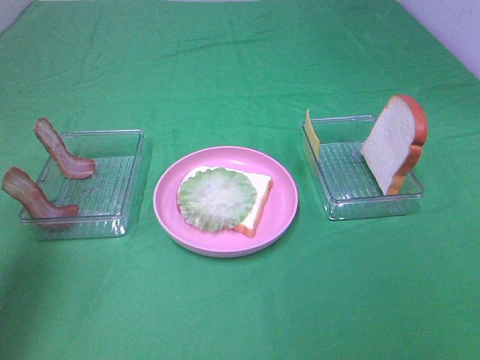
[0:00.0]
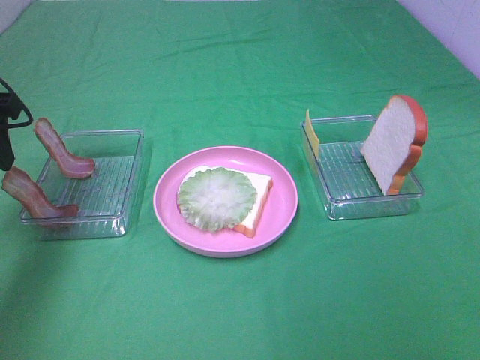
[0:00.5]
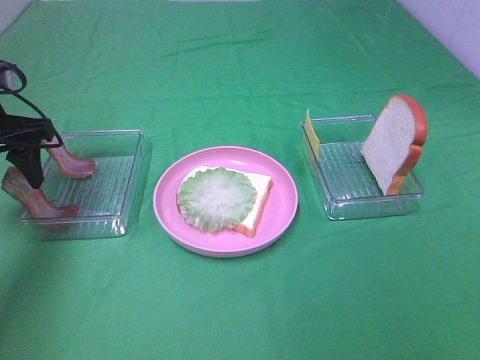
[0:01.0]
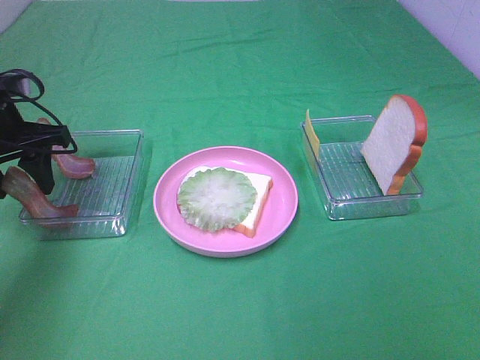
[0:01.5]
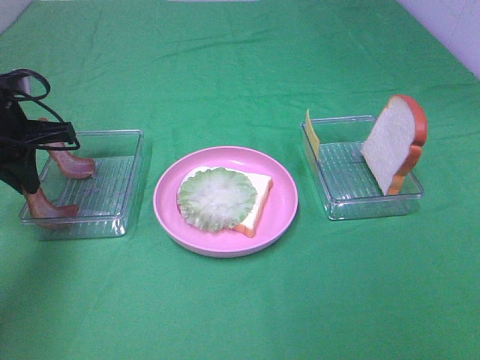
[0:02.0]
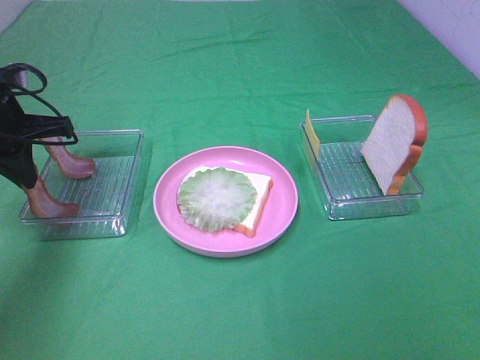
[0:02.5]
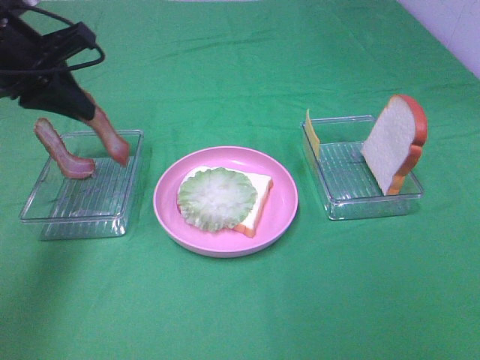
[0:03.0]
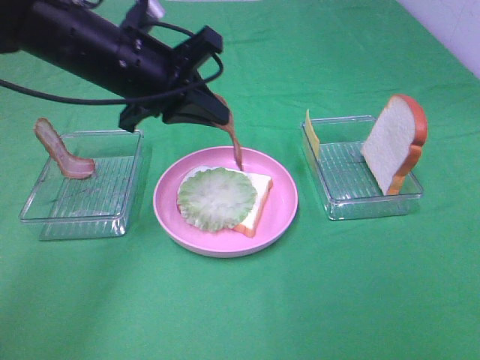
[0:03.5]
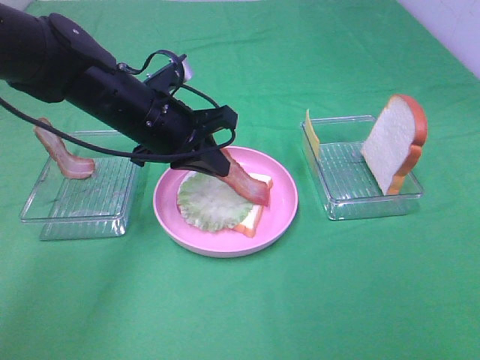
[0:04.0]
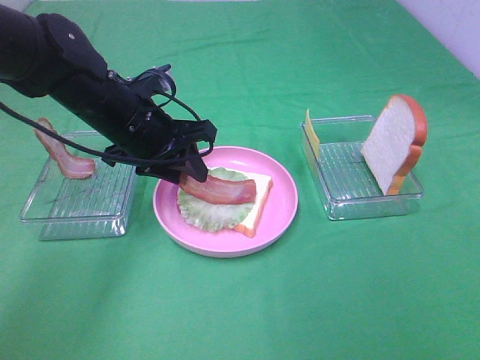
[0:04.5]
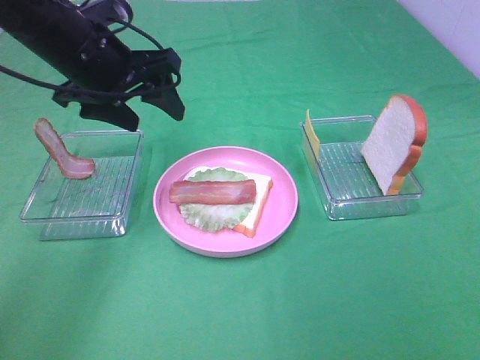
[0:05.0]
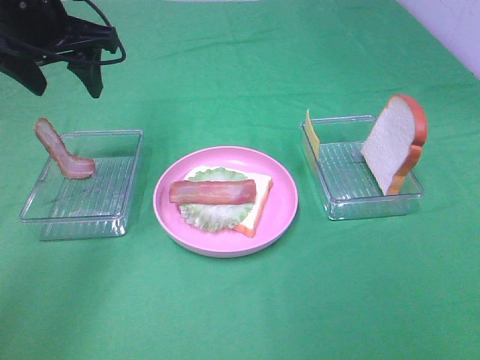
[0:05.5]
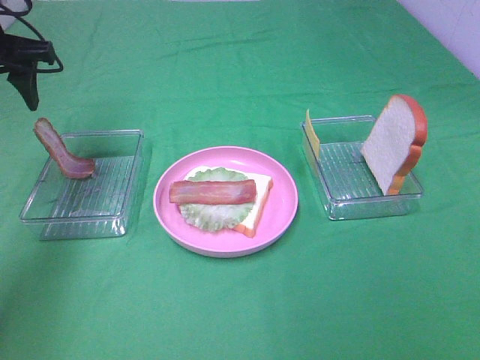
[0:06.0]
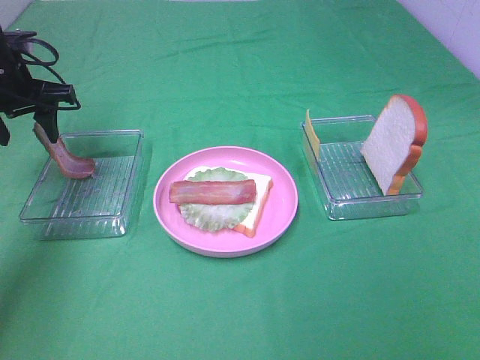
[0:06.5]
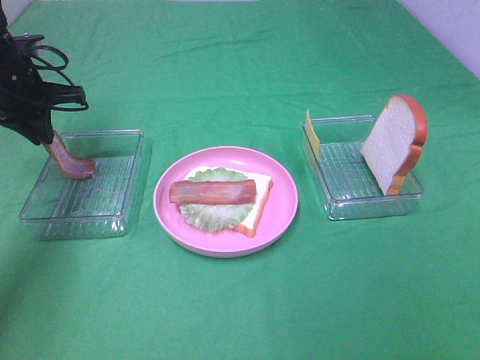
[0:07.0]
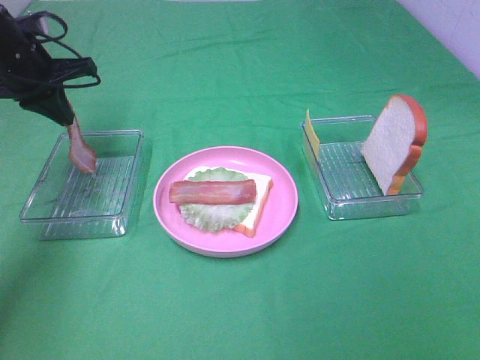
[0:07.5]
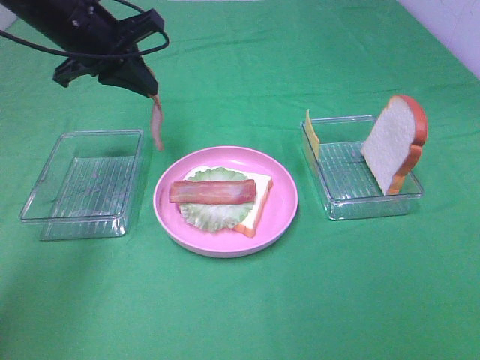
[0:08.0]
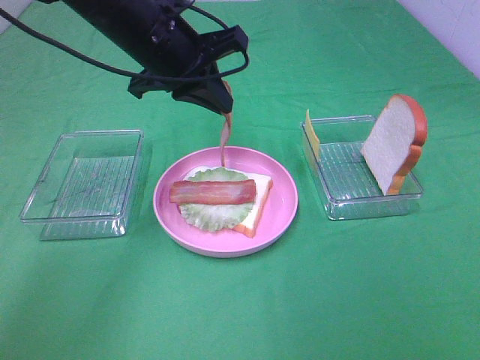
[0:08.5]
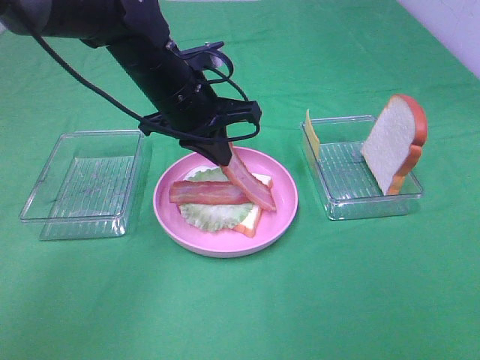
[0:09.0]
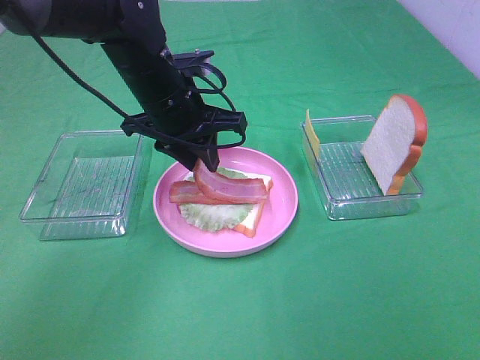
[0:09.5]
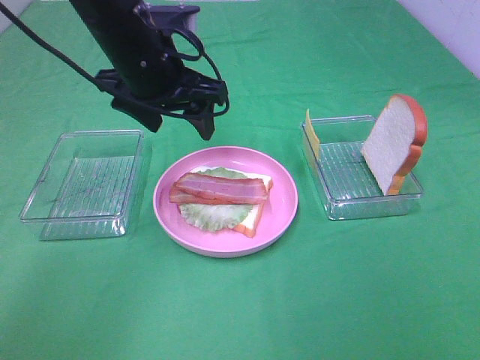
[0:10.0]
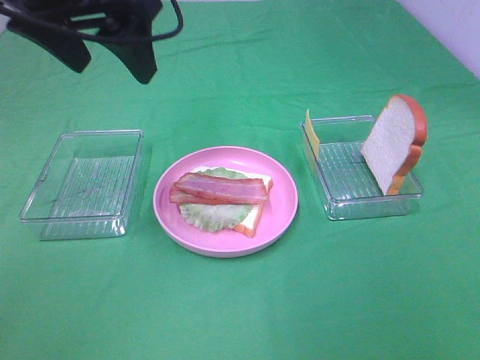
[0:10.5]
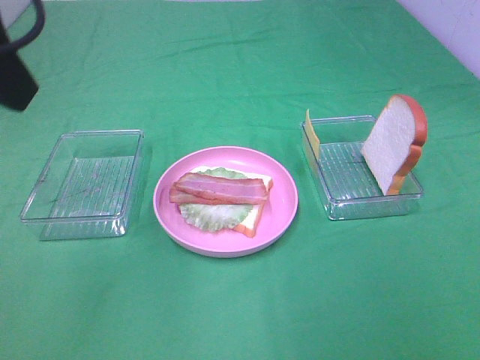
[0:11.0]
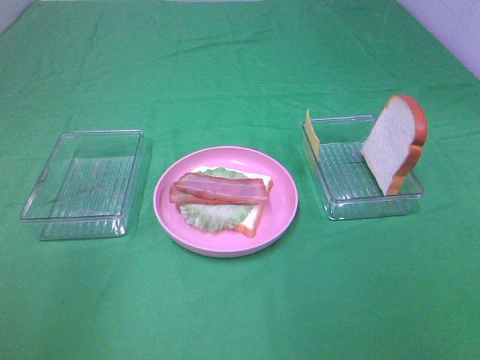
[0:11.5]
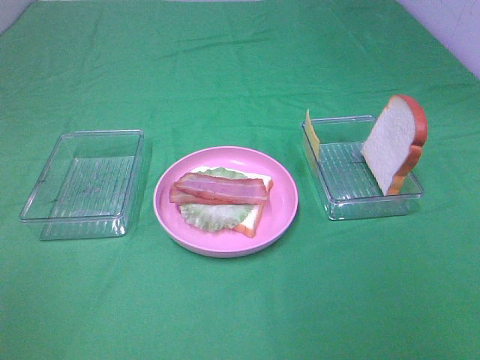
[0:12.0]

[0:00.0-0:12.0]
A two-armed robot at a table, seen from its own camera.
Task of the whole recording: Make sandwiches.
Step, 0:00.0 to 0:02.0: Left hand:grab the bacon.
Step, 0:02.5 to 0:04.5: Left hand:place bacon on lettuce slice.
Step, 0:05.0 to 0:07.0: Left hand:grab the bacon.
Step, 0:07.5 to 0:09.5: Left hand:place bacon on bacon.
0:00.0 to 0:02.0: The left gripper shifts about 20 cm forward and downward, and closes its fingers.
0:02.0 to 0:04.0: The left gripper is displaced to the right by about 15 cm.
0:04.0 to 0:06.0: The left gripper travels to the left and upward by approximately 20 cm, and opens its fingers.
0:06.0 to 0:08.0: The left gripper goes about 10 cm to the right, and closes.
0:08.0 to 0:10.0: The left gripper is displaced to the right by about 10 cm, and opens its fingers.
0:10.0 to 0:12.0: The left gripper moves backward and to the left, some 40 cm.

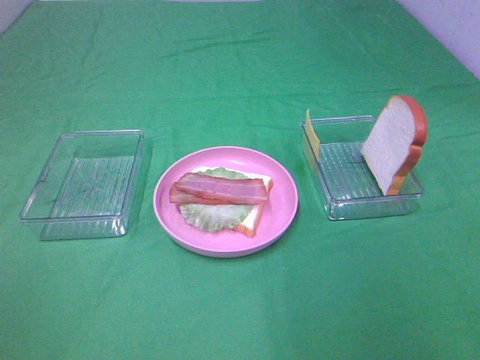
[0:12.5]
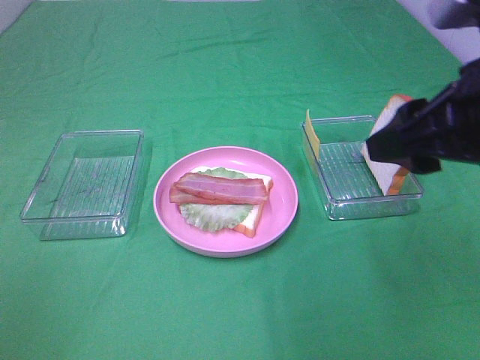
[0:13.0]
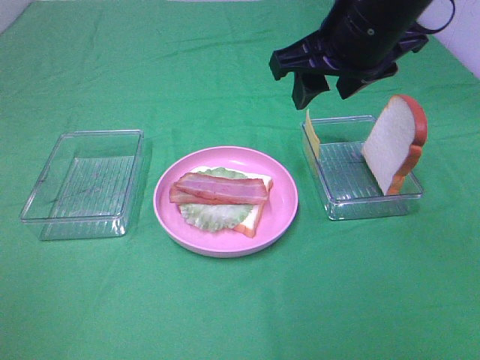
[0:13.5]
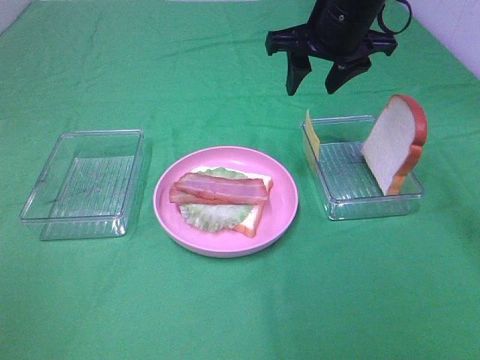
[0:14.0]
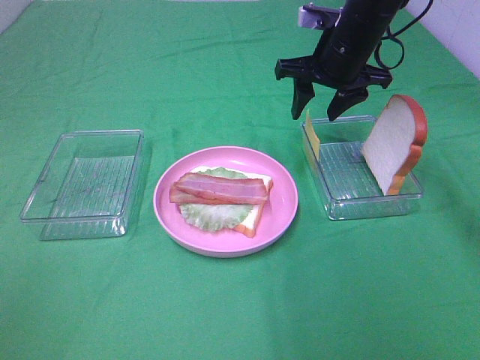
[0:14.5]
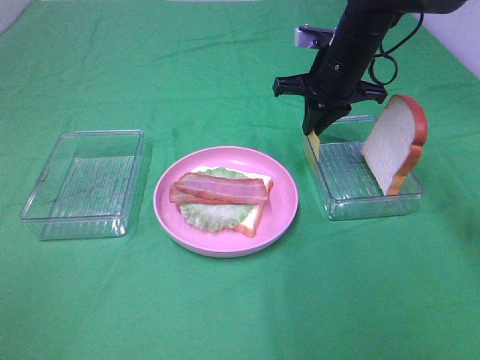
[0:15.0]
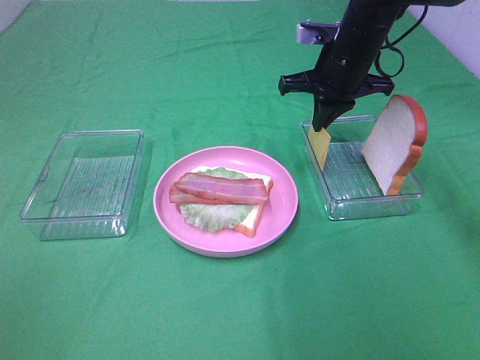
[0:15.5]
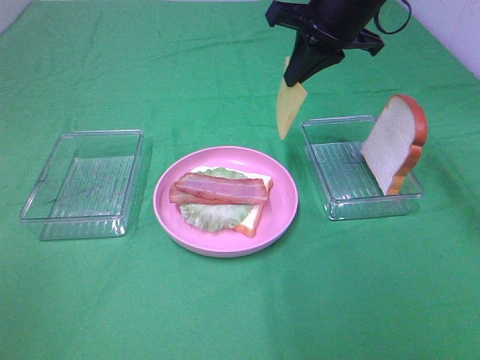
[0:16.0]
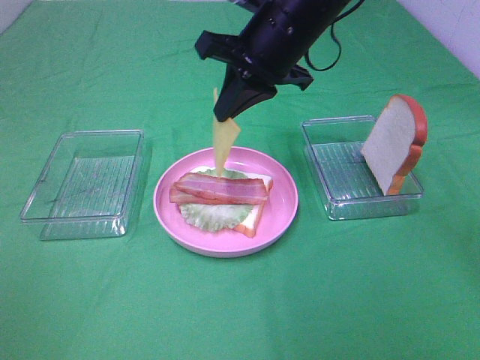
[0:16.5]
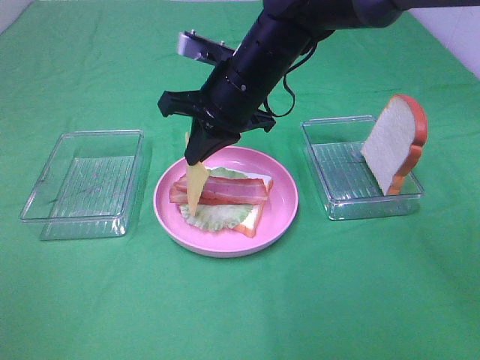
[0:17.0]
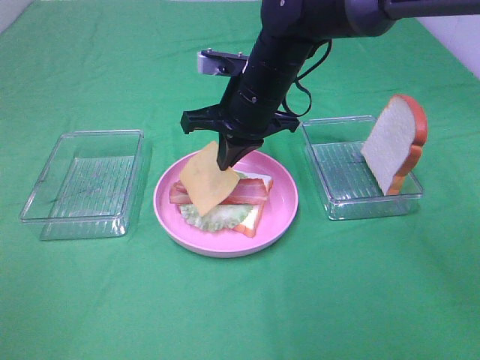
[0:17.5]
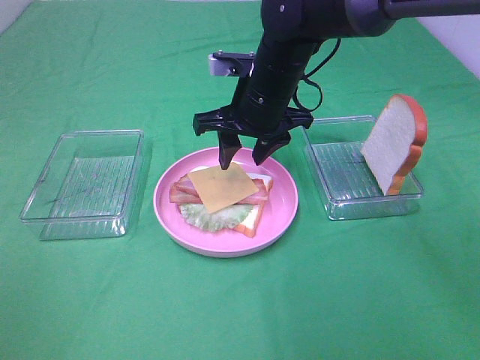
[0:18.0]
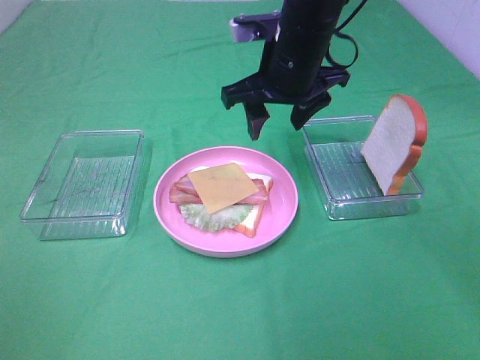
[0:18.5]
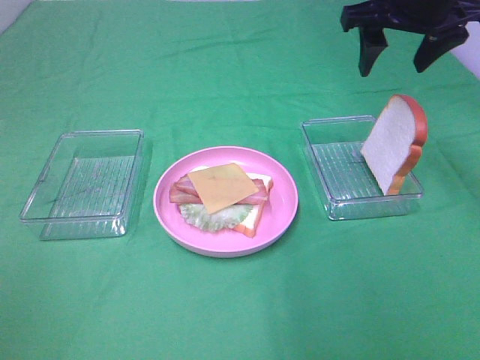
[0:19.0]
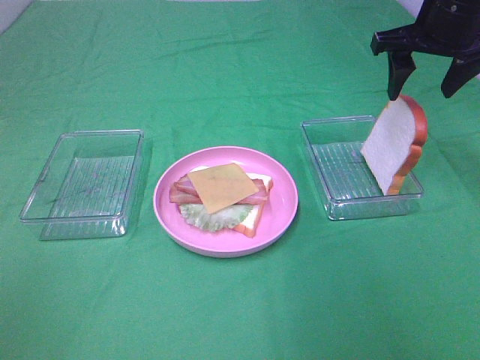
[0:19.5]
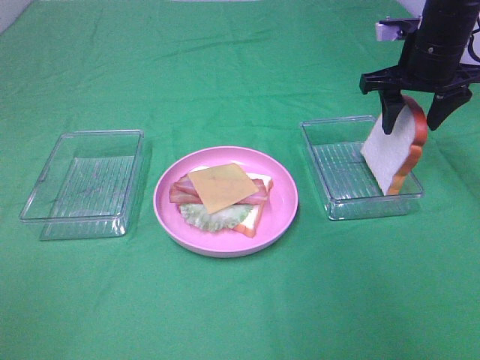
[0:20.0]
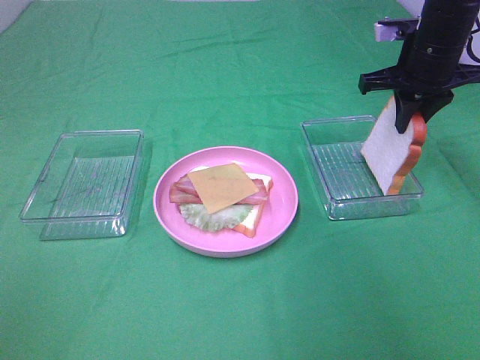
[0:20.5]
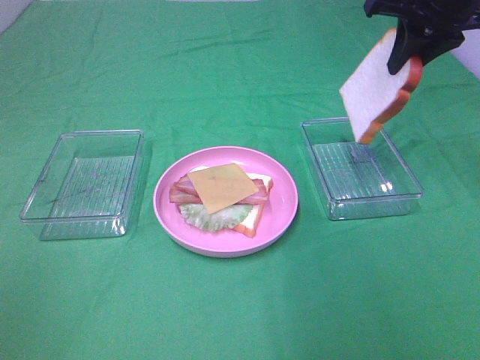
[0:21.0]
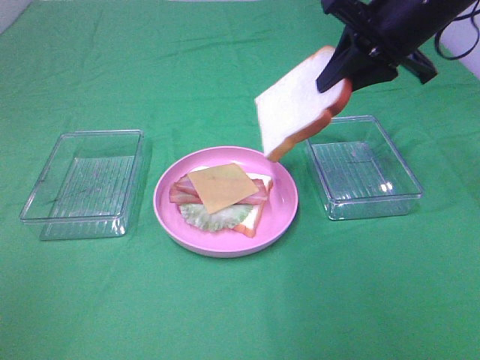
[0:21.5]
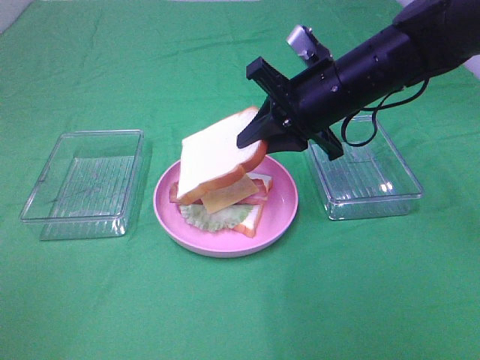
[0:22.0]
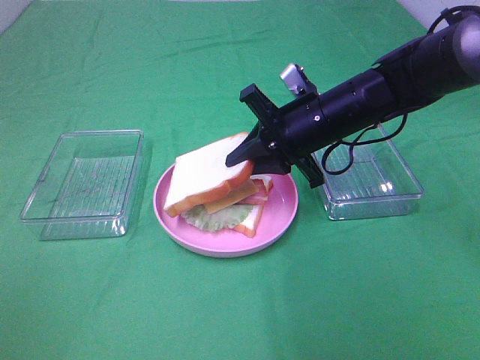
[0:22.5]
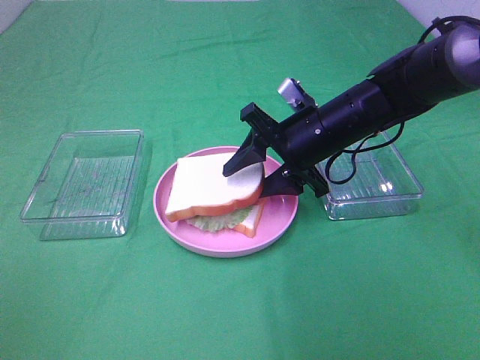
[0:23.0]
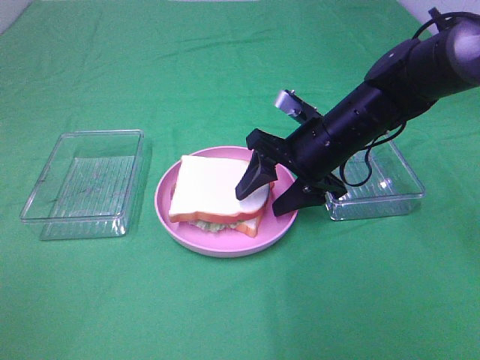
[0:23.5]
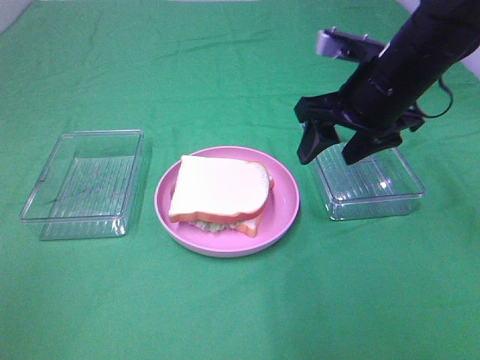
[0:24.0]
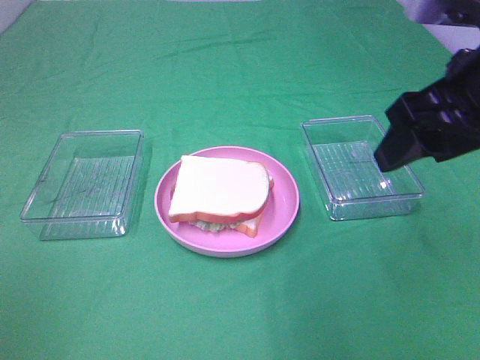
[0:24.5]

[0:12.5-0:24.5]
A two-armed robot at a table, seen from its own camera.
Task of the whole recording: Make sandwiches.
Step, 0:12.5 to 0:15.0: Right hand:grab the cheese slice.
Step, 0:15.5 to 0:18.0: Right hand:place the cheese slice on top of the bacon.
Step, 0:18.5 to 0:20.0: Right hand:grab the bread slice.
Step, 0:20.5 to 0:23.5: Right hand:place the bread slice on the cheese slice.
0:12.5 to 0:14.5: The right gripper travels forward by some 40 cm.
0:14.5 to 0:16.5: The right gripper moves to the left, backward and upward, about 15 cm, and closes.
0:16.5 to 0:18.5: The right gripper goes downward and returns, about 10 cm each way, and opens up.
0:18.5 to 0:20.5: The right gripper travels to the right by some 15 cm, and closes.
0:20.5 to 0:22.5: The right gripper travels to the left, downward and backward by roughly 15 cm.
0:22.5 to 0:24.5: The right gripper travels upward, backward and to the right by about 25 cm, and opens up.

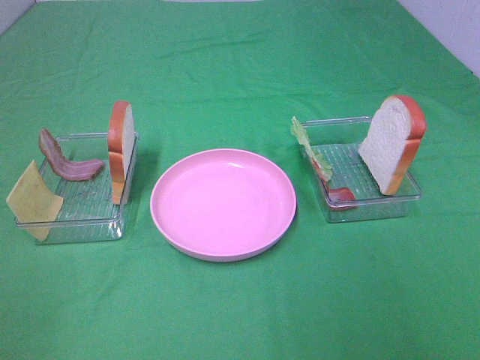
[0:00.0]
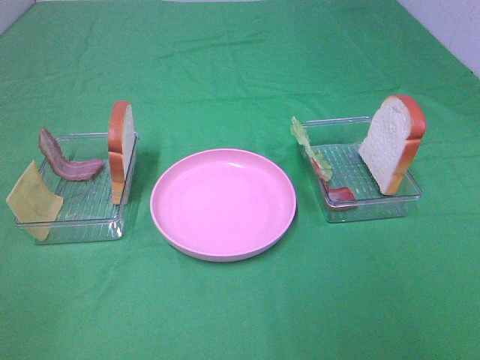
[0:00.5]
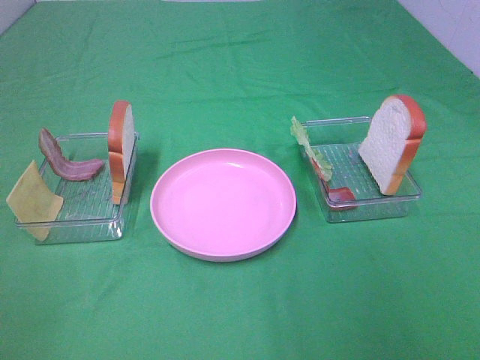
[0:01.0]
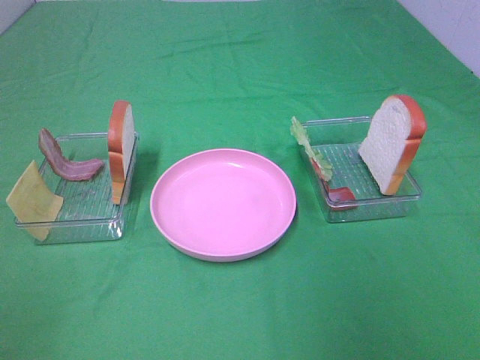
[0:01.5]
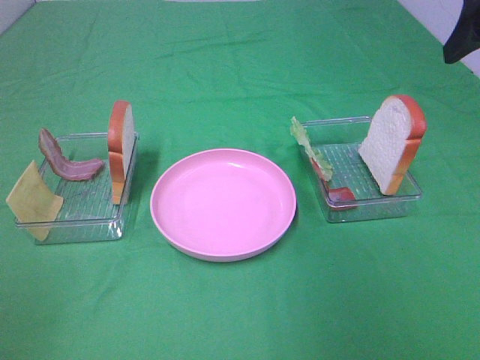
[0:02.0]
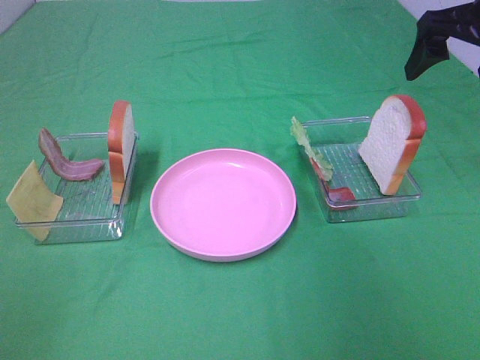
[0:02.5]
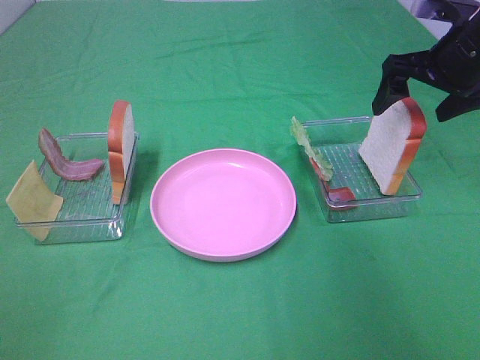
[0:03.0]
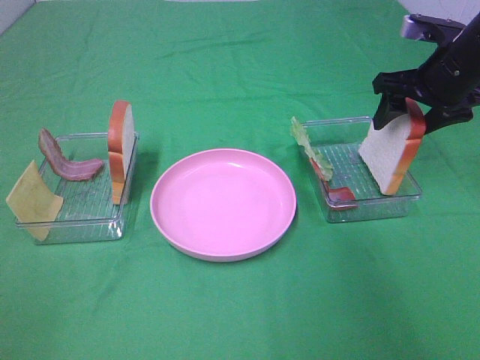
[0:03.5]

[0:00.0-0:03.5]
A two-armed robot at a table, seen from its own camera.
Task of the whole recording: Make sandwiches.
0:00.0 to 0:02.0: The right gripper goes approximately 30 cm forward.
0:02.0 to 0:03.5: The right gripper is displaced downward and forward by approximately 15 cm.
